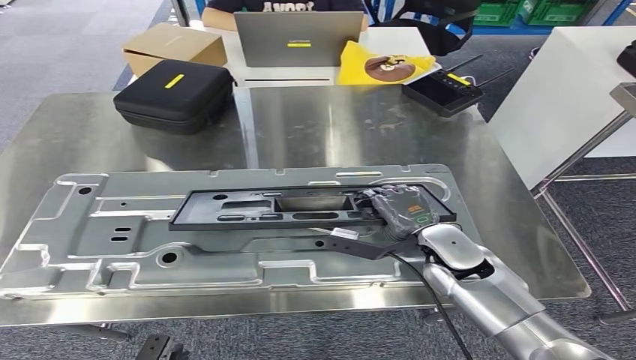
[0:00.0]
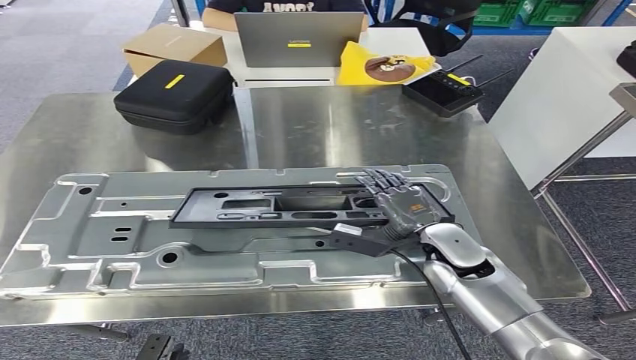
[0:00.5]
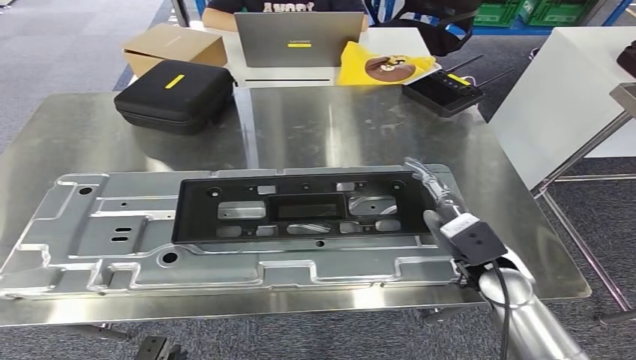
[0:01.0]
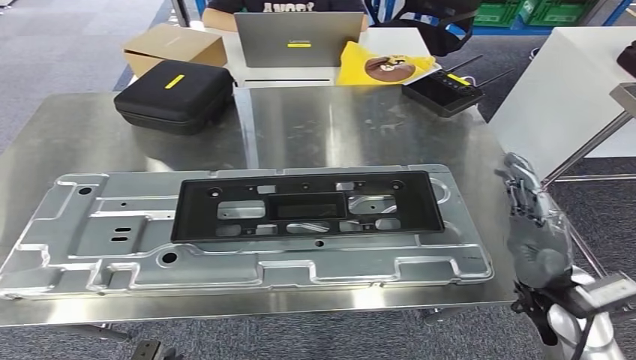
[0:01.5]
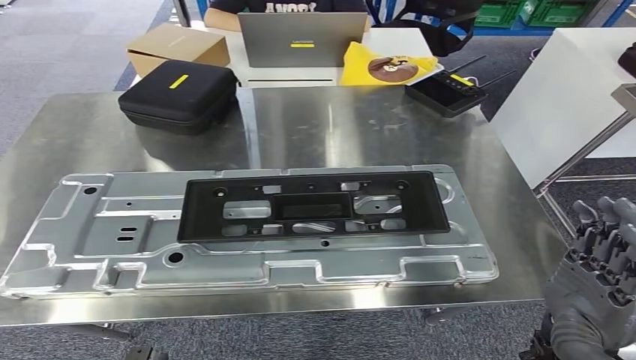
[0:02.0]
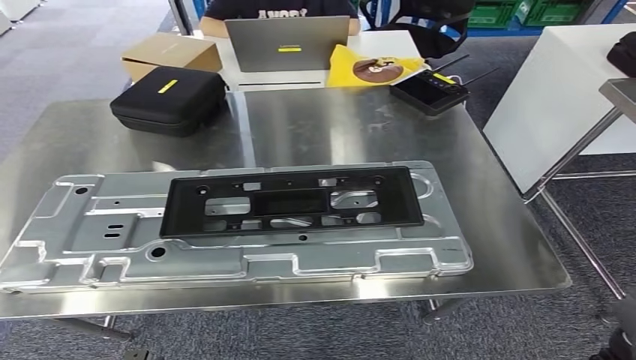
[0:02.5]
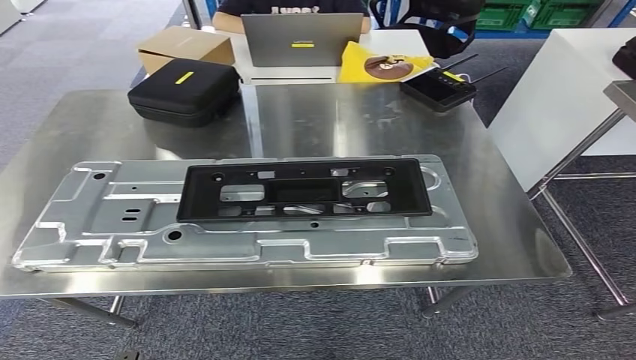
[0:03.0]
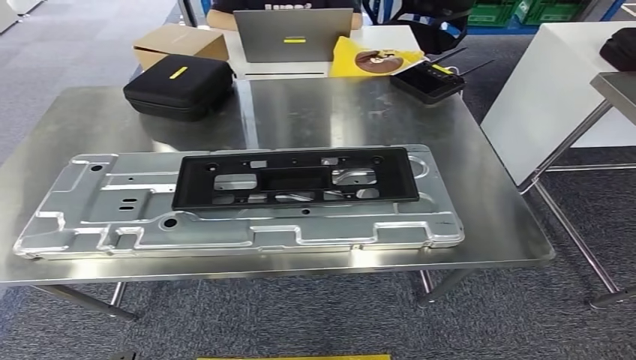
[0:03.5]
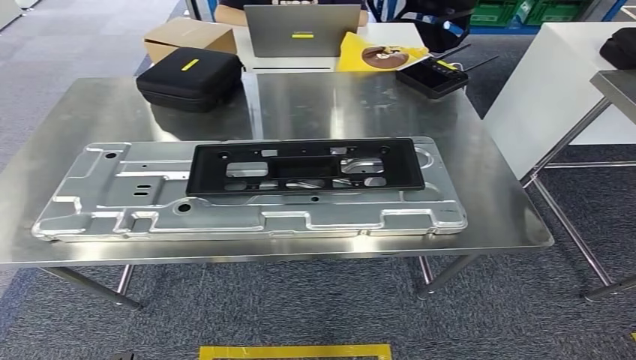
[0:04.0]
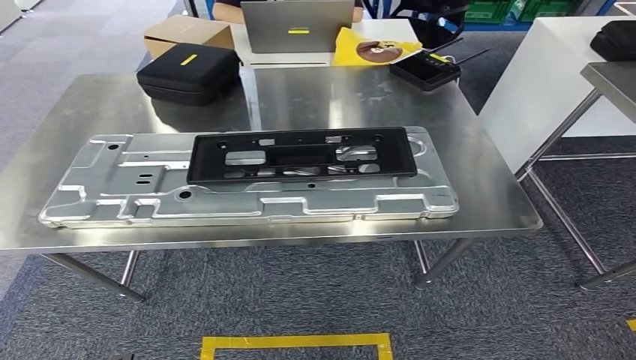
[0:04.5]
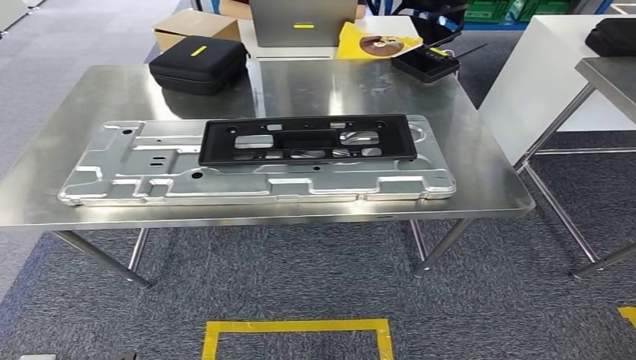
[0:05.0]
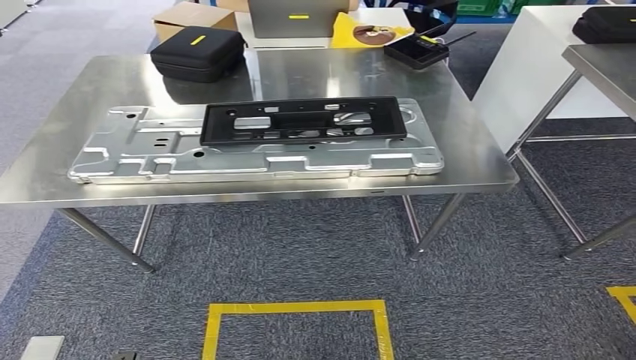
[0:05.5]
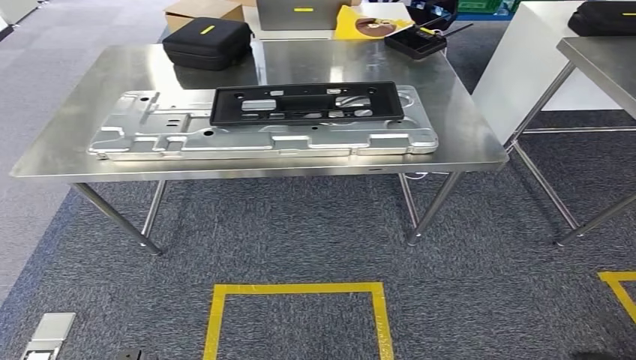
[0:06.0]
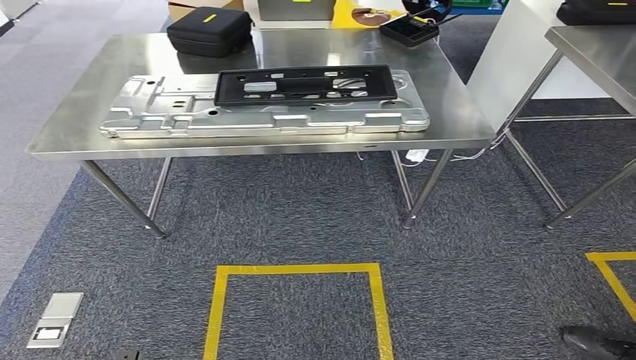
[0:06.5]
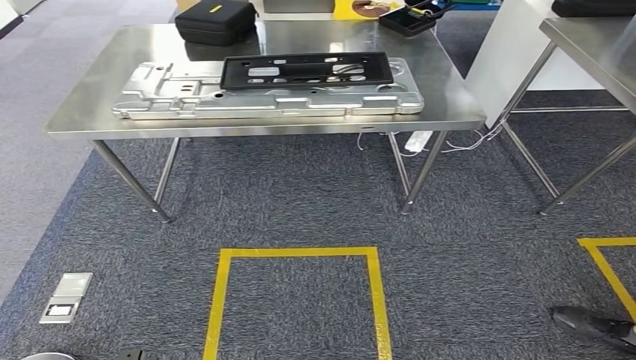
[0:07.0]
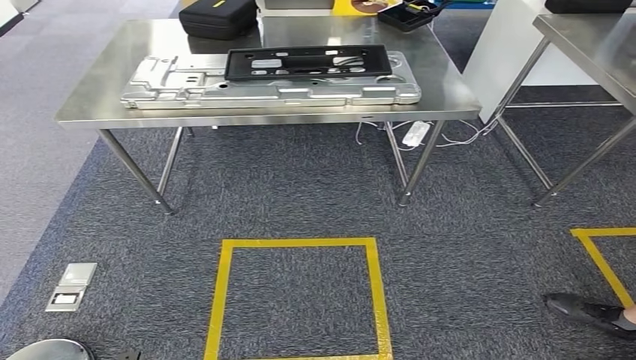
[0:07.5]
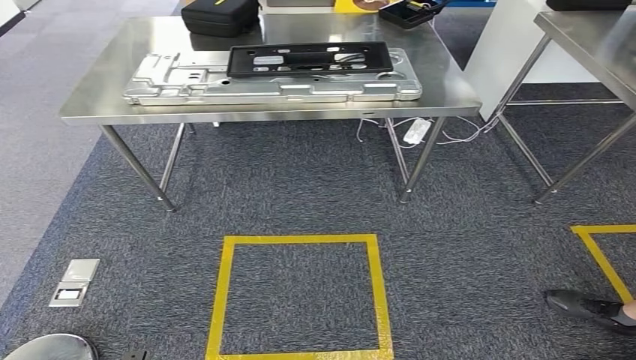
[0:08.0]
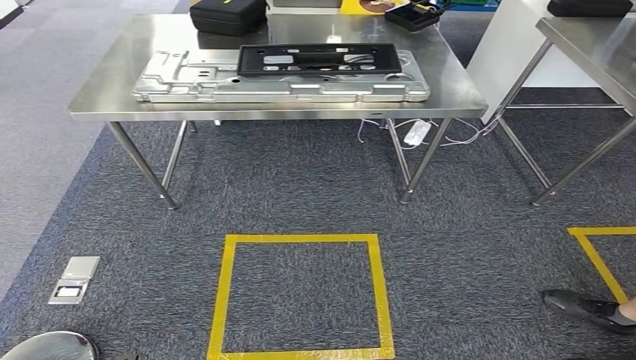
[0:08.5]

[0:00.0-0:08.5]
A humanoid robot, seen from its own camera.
Step, 0:03.5 to 0:08.5: Return to the initial position at the shelf.

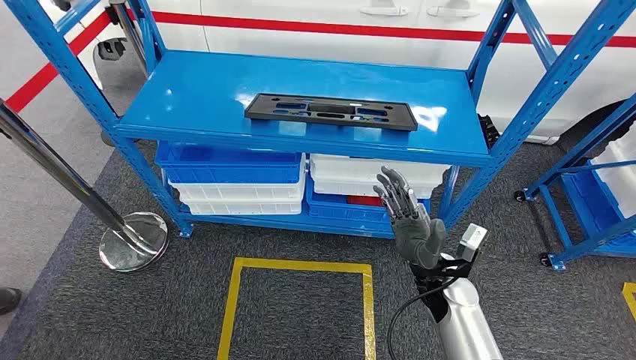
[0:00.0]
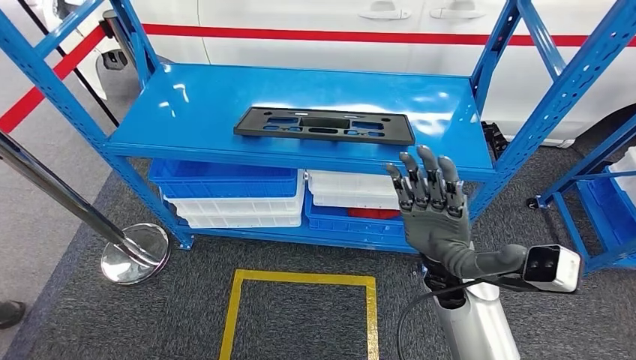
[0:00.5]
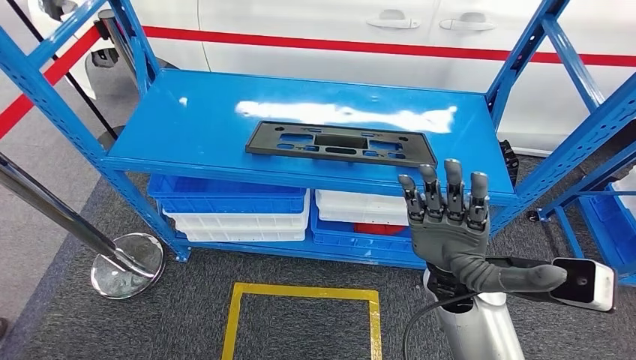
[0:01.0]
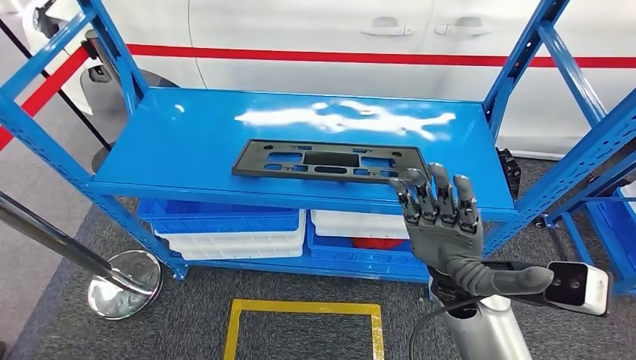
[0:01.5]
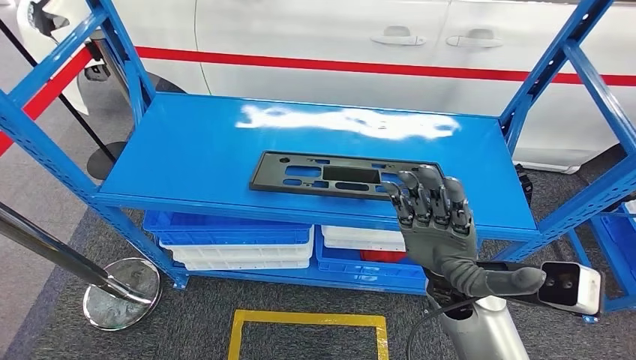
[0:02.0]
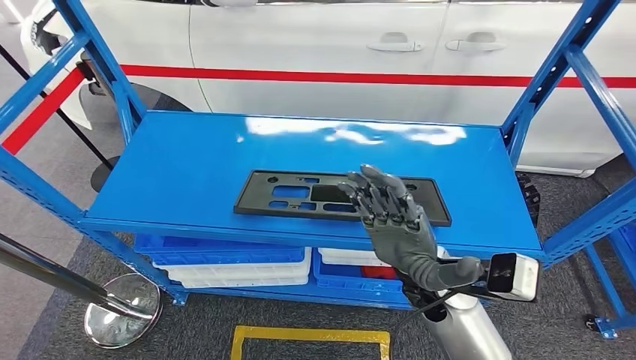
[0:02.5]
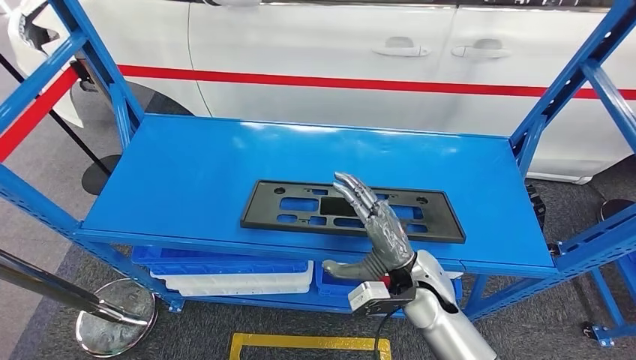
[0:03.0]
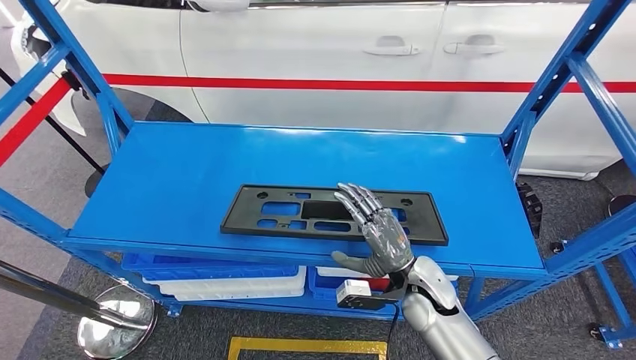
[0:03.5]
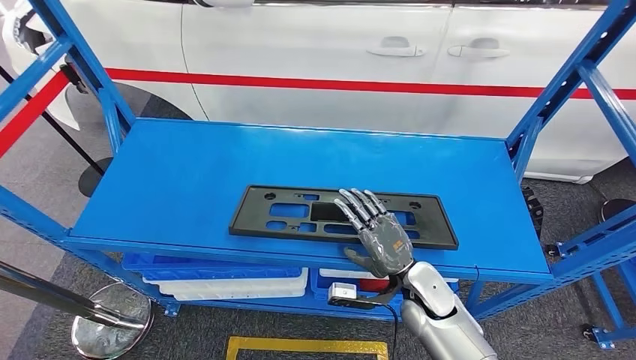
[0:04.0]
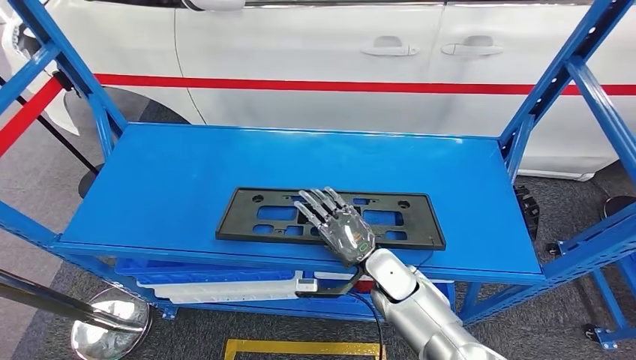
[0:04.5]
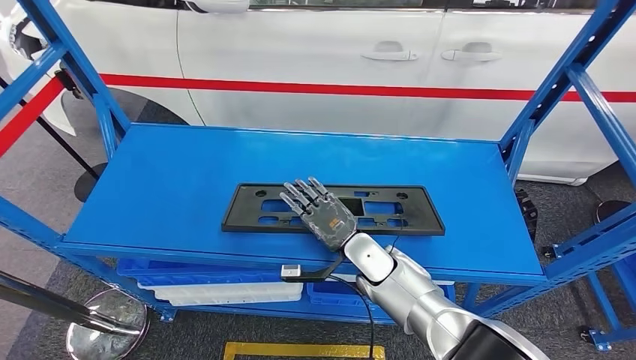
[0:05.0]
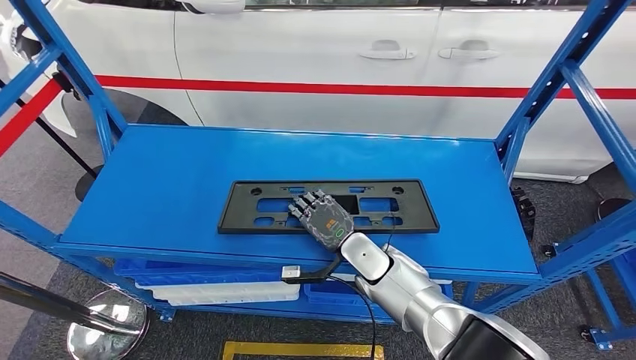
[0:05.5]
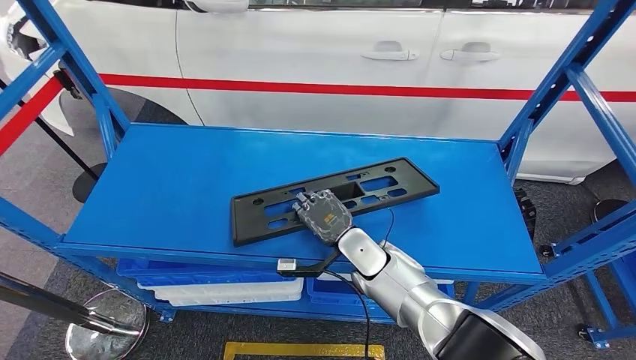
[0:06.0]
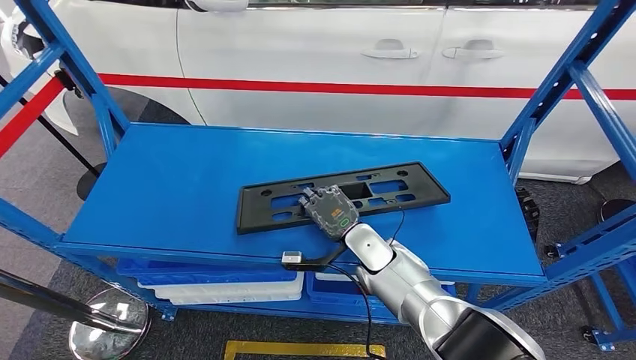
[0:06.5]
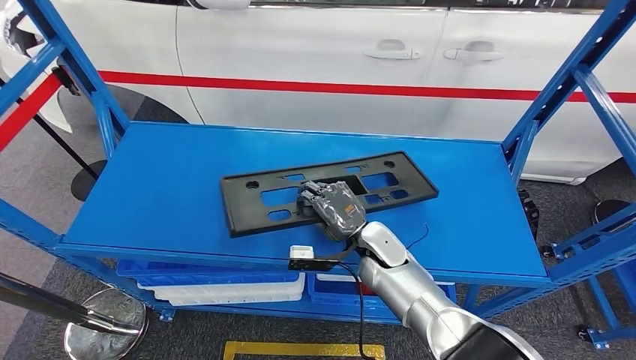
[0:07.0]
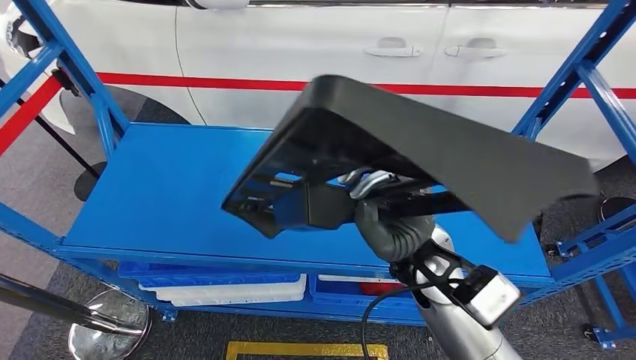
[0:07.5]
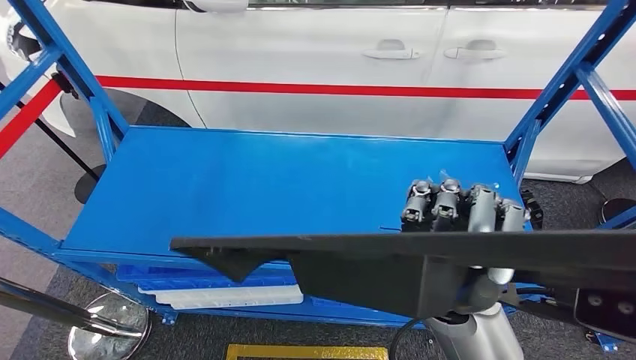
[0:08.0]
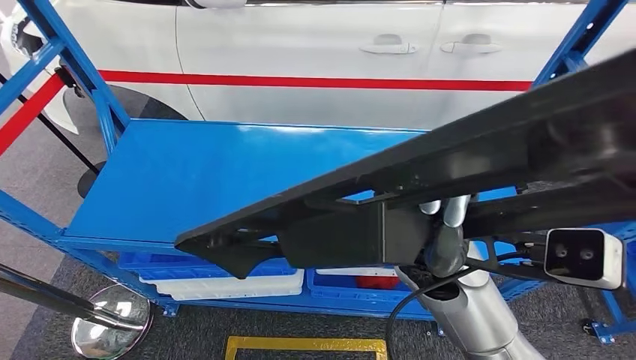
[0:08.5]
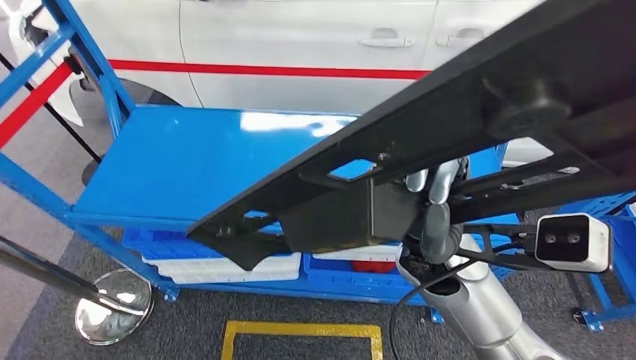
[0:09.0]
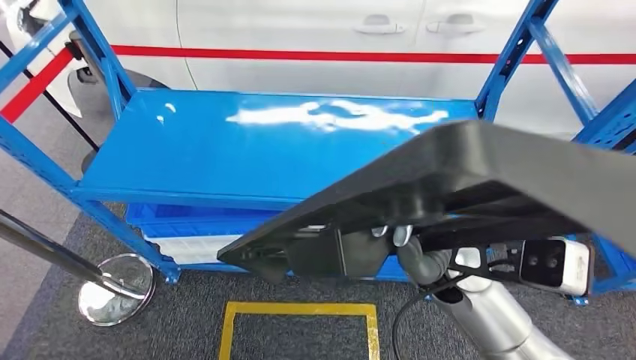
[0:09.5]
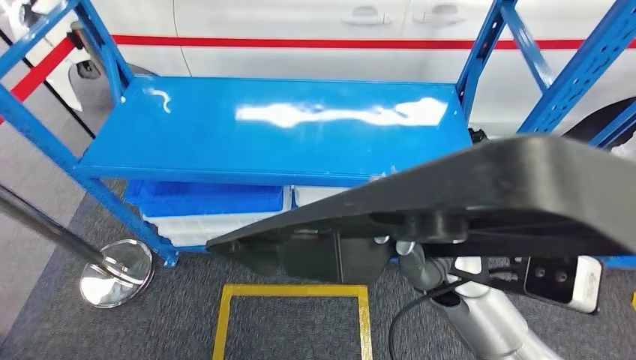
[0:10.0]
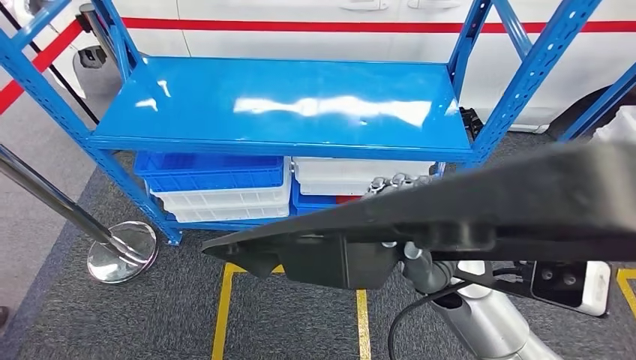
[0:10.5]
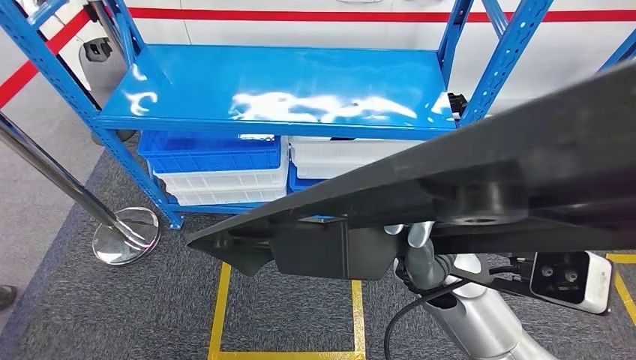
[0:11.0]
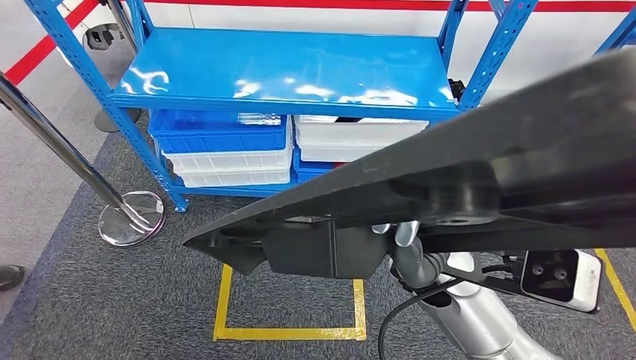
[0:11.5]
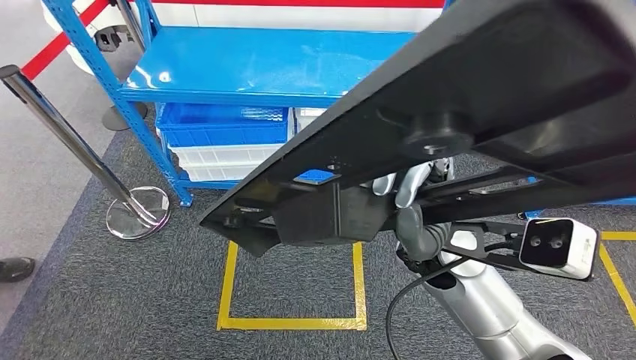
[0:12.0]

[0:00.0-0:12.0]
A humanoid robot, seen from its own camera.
Step, 0:00.0 to 0:08.0: Pick up the large material from the shelf.
